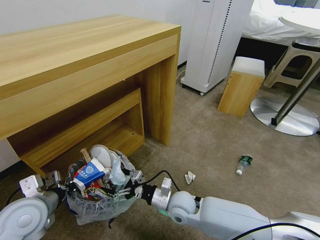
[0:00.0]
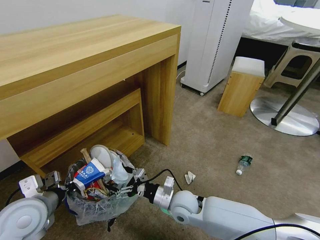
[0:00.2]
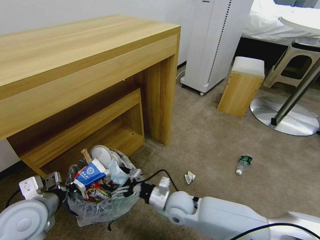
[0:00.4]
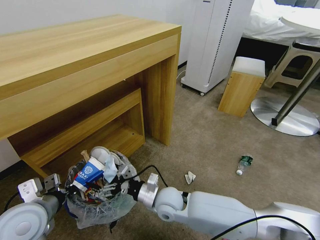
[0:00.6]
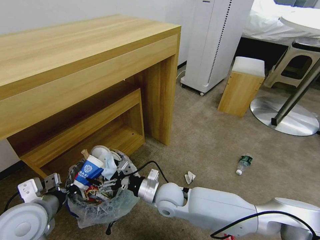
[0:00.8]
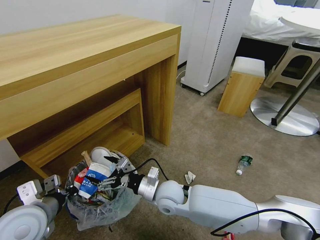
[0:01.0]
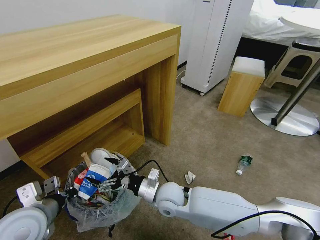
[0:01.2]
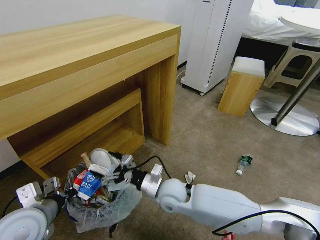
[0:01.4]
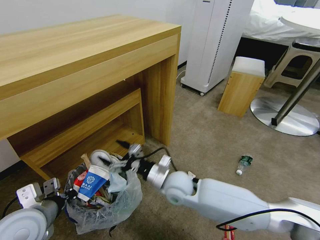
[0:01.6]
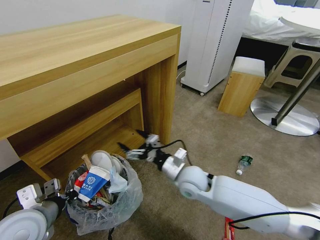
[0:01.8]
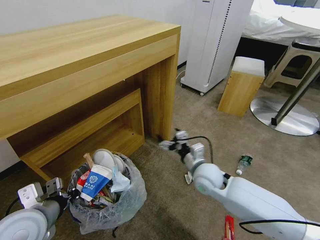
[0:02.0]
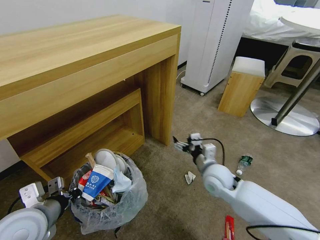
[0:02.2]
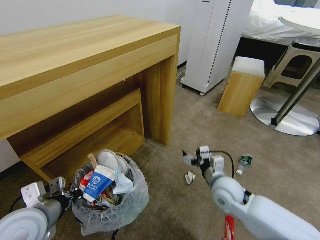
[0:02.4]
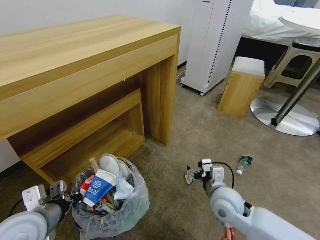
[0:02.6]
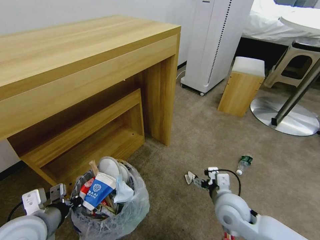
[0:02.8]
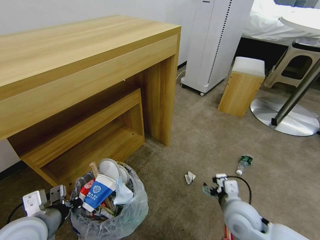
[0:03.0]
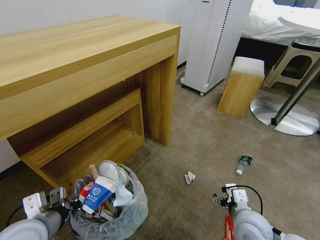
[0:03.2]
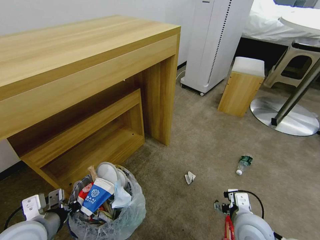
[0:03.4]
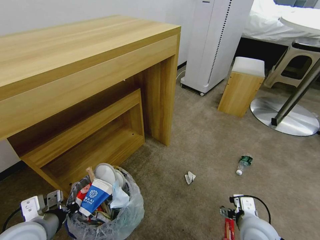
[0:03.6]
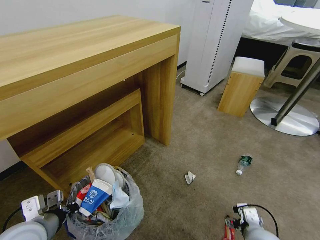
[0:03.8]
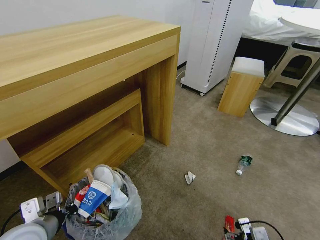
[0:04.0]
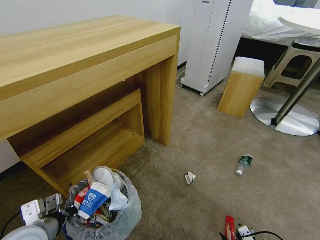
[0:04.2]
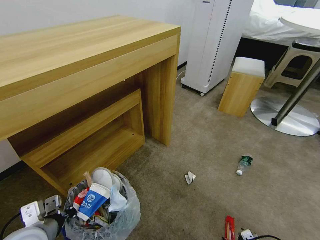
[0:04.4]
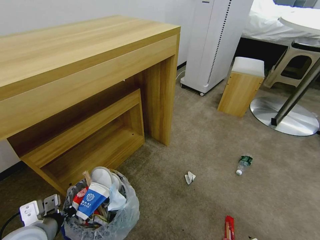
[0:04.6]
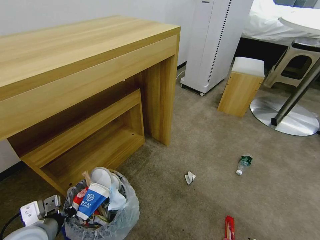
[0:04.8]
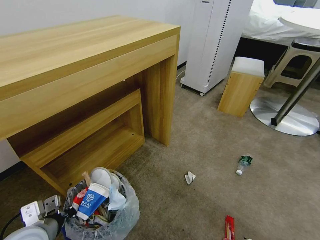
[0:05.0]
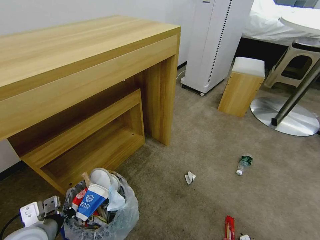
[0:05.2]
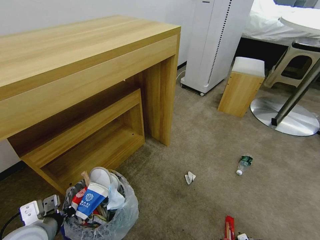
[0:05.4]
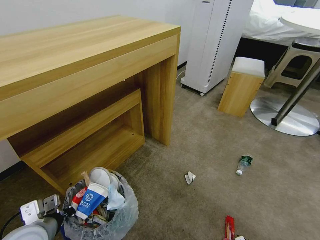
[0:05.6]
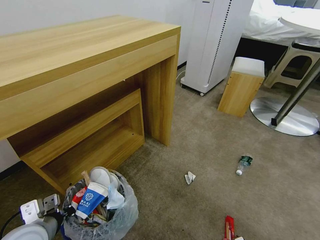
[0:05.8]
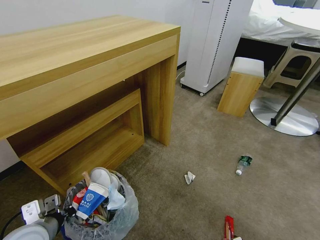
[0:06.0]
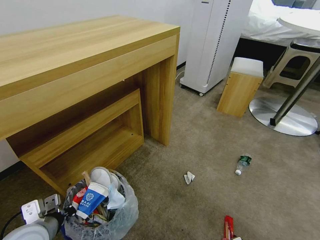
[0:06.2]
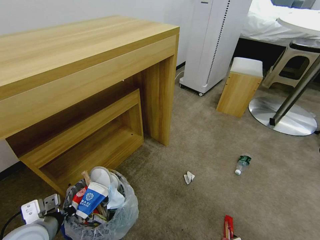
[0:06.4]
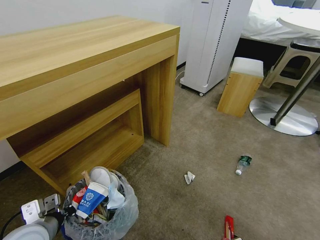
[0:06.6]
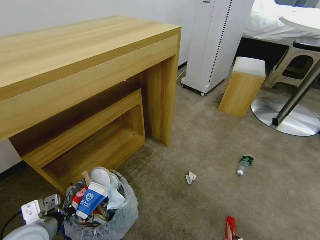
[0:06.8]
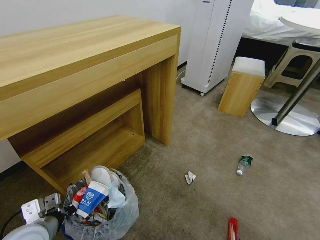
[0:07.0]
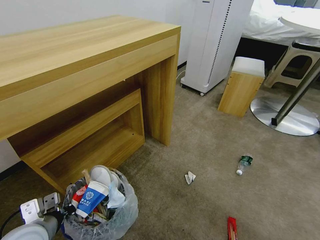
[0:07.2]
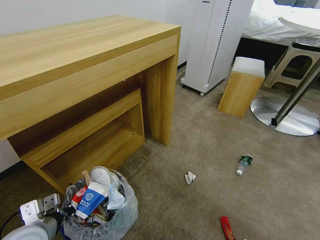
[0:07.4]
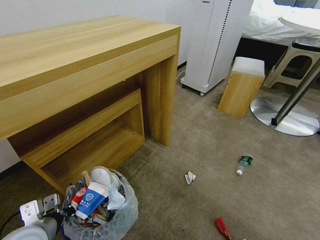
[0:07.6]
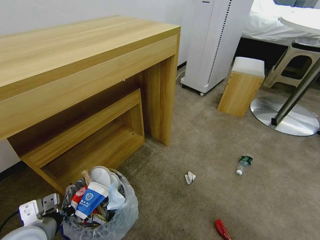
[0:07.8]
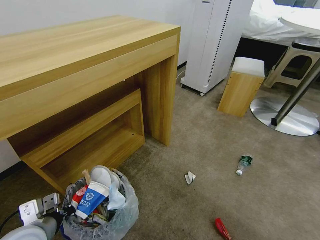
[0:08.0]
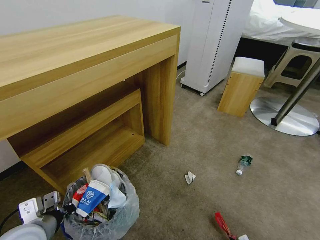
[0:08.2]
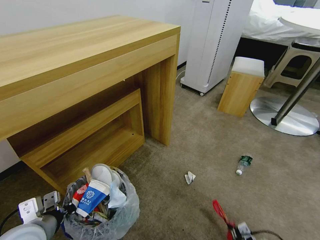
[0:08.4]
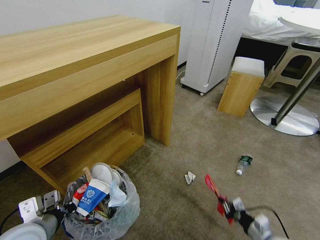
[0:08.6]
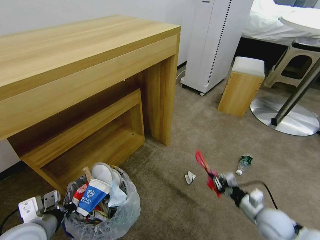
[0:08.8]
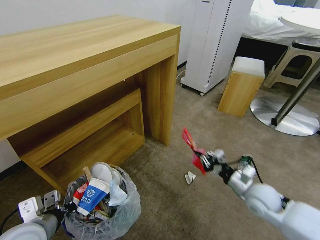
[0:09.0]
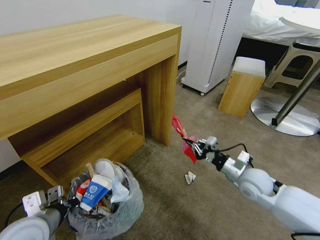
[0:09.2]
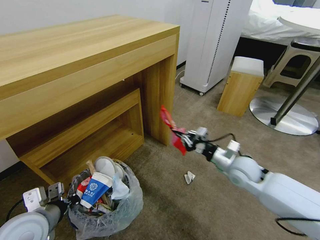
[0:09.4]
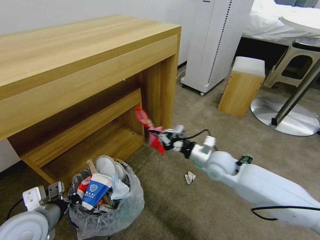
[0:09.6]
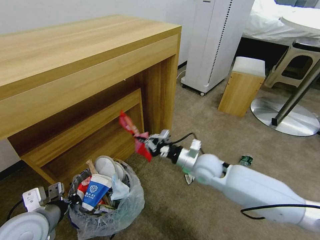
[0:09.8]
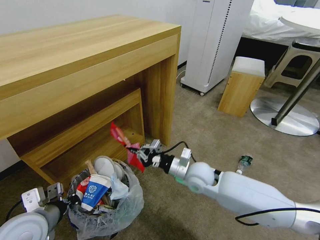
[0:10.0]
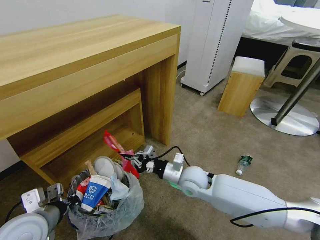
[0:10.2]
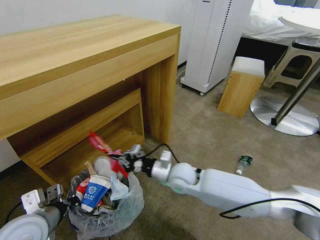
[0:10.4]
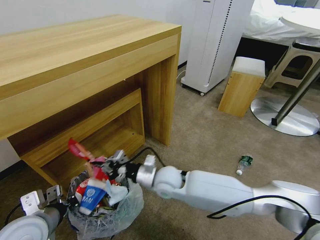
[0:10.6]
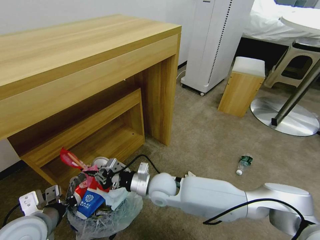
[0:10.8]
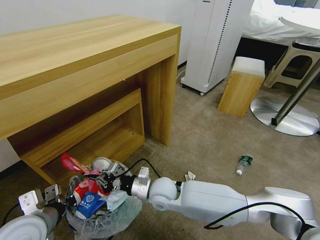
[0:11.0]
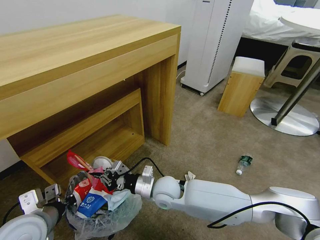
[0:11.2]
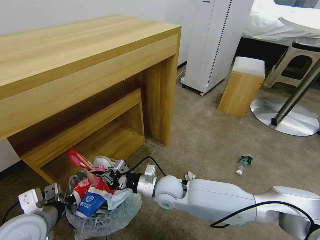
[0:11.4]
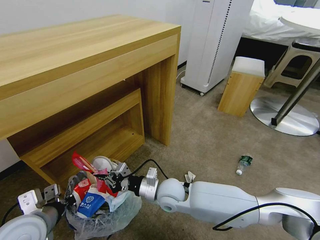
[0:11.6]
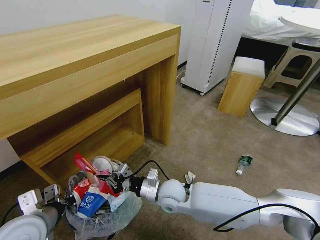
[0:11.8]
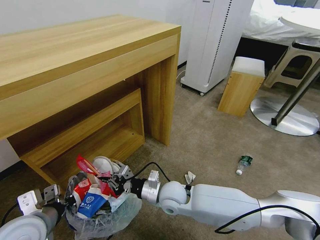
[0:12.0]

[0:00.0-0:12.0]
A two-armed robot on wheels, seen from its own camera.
Task of the whole recording: Pick up the trash bin and place the garbage on the floor into it.
0:00.0 to 0:01.6: The right gripper moves upward, approximately 10 cm.
0:01.6 to 0:03.0: The right gripper goes some 20 cm to the right and backward.
0:03.0 to 0:04.4: The right gripper shifts roughly 25 cm backward, to the right and downward.
0:04.4 to 0:06.0: The right gripper travels downward by some 10 cm.
0:06.0 to 0:07.6: The right gripper closes its fingers.
0:07.6 to 0:09.0: The right gripper moves forward and upward, about 30 cm.
0:09.0 to 0:10.4: The right gripper heads to the left, covering about 25 cm.
0:10.4 to 0:12.0: The right gripper heads backward, covering roughly 5 cm.

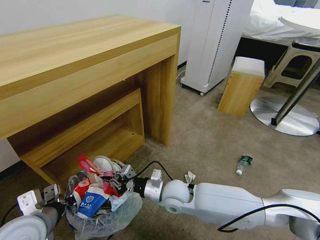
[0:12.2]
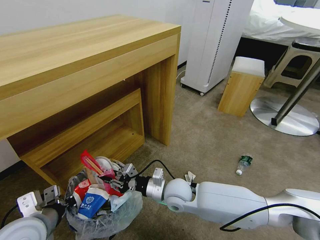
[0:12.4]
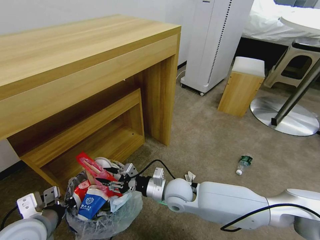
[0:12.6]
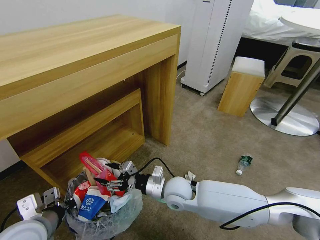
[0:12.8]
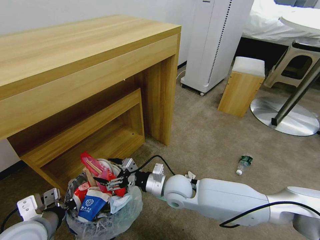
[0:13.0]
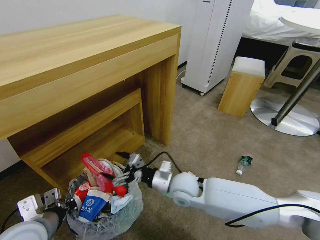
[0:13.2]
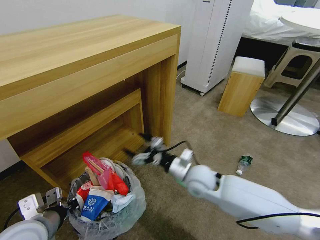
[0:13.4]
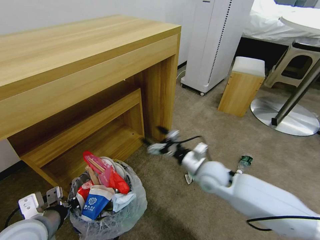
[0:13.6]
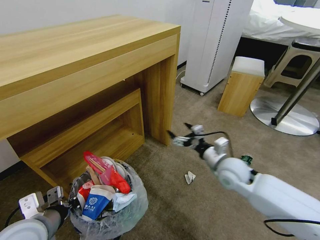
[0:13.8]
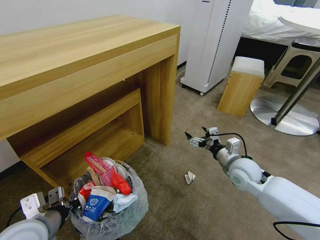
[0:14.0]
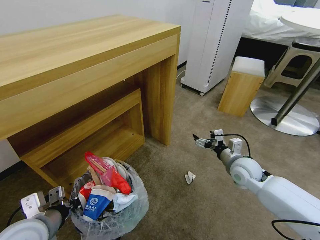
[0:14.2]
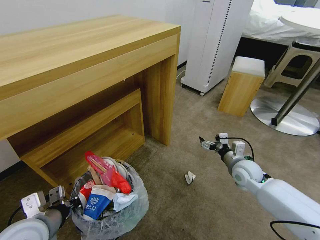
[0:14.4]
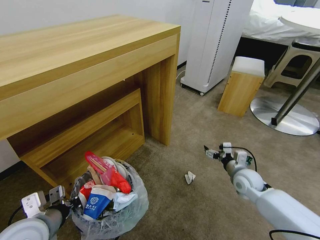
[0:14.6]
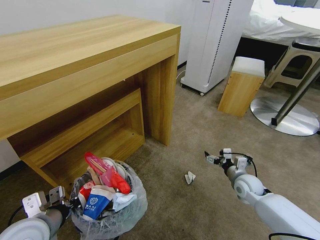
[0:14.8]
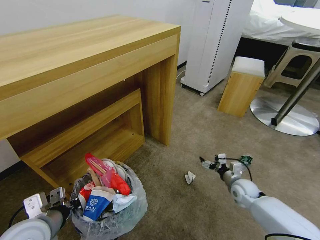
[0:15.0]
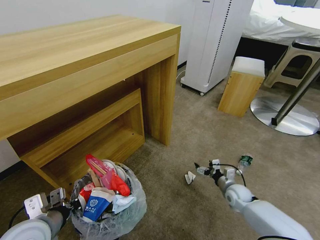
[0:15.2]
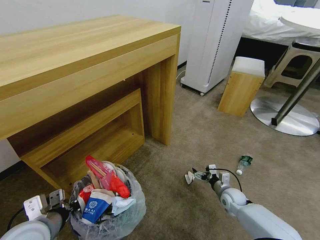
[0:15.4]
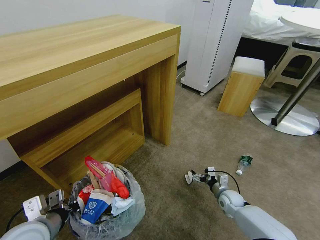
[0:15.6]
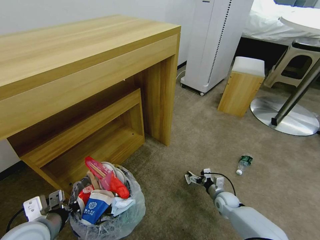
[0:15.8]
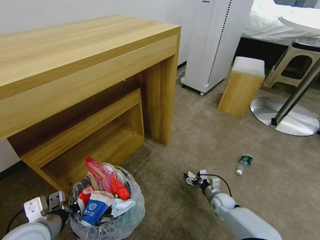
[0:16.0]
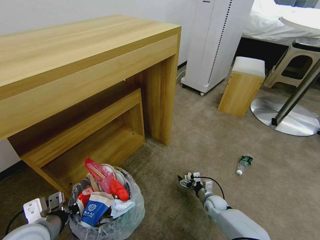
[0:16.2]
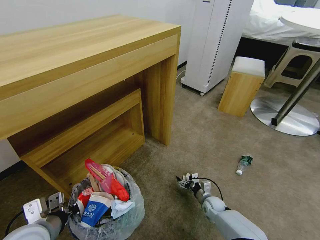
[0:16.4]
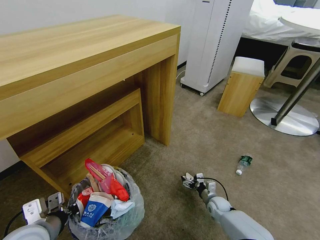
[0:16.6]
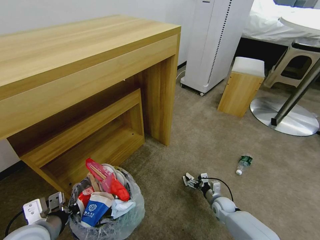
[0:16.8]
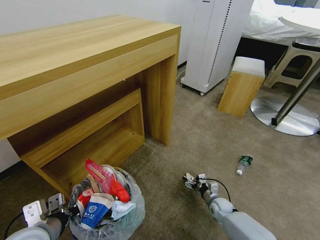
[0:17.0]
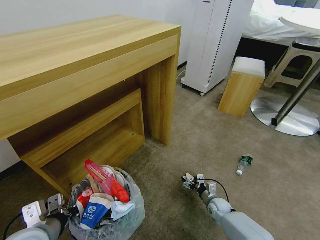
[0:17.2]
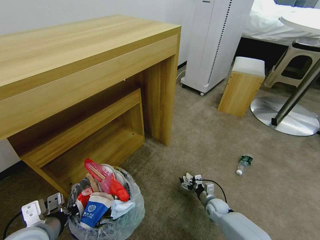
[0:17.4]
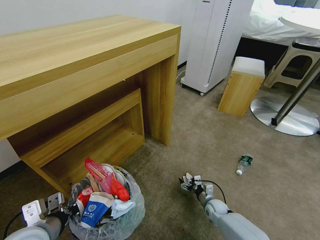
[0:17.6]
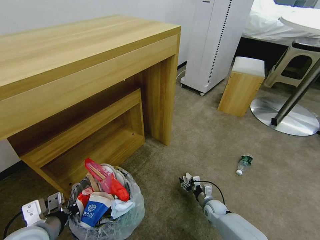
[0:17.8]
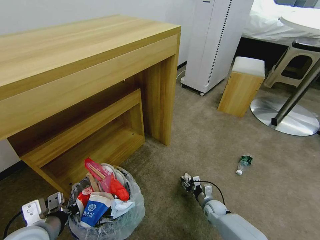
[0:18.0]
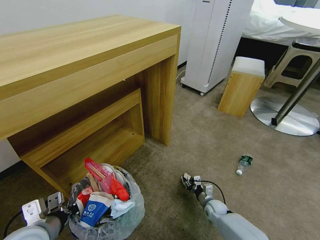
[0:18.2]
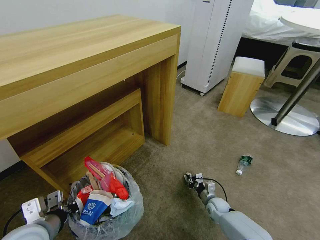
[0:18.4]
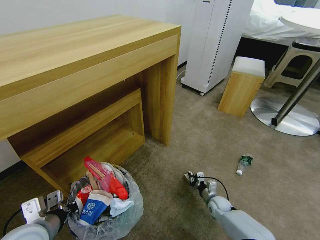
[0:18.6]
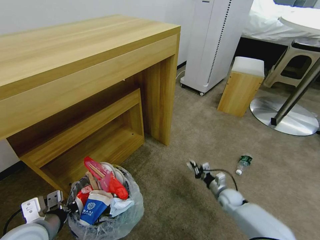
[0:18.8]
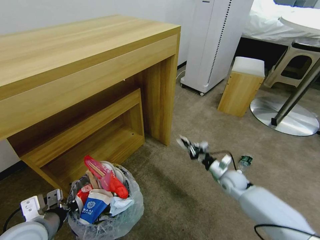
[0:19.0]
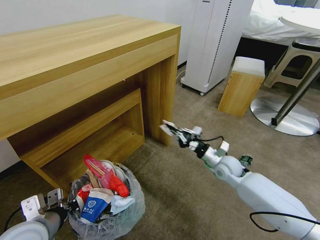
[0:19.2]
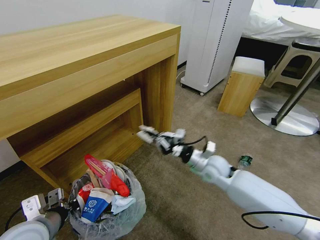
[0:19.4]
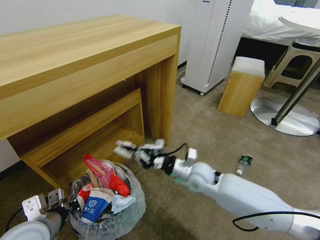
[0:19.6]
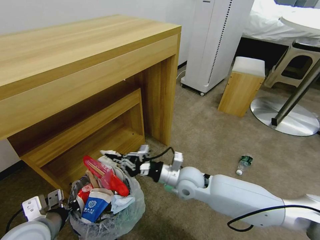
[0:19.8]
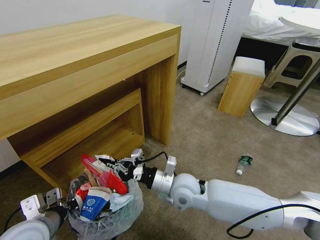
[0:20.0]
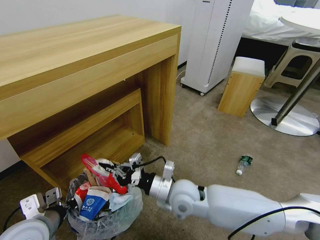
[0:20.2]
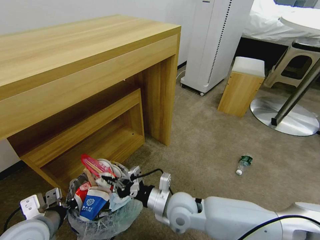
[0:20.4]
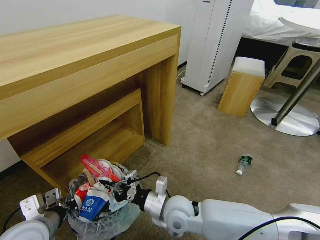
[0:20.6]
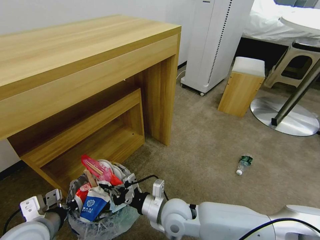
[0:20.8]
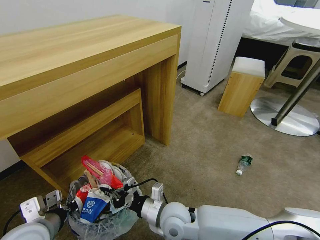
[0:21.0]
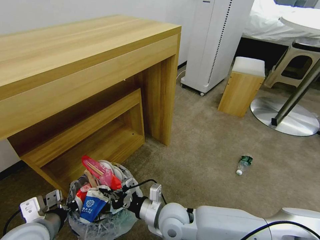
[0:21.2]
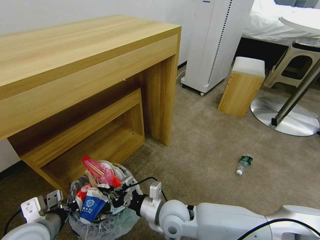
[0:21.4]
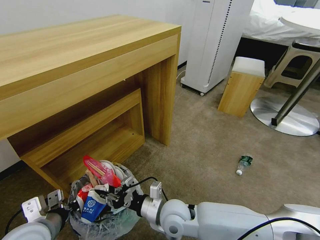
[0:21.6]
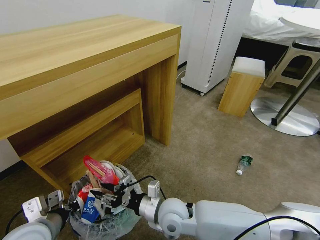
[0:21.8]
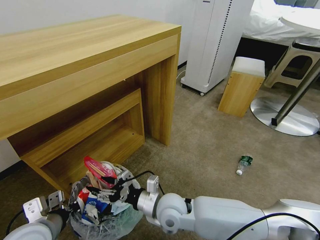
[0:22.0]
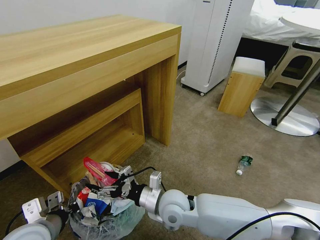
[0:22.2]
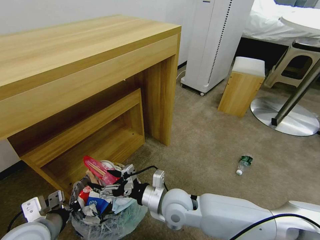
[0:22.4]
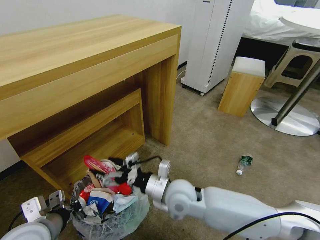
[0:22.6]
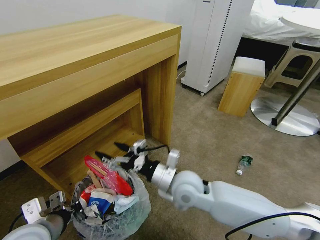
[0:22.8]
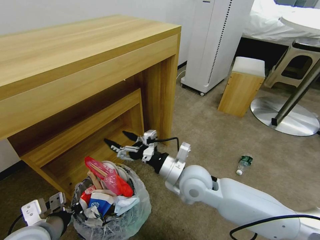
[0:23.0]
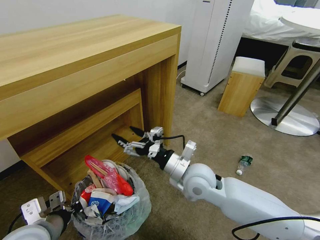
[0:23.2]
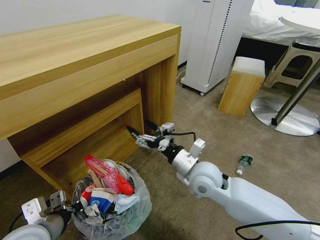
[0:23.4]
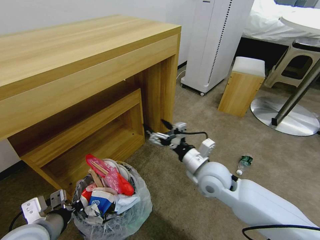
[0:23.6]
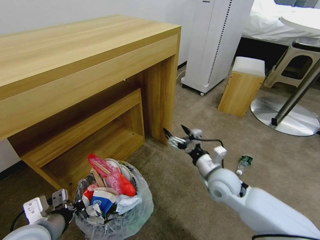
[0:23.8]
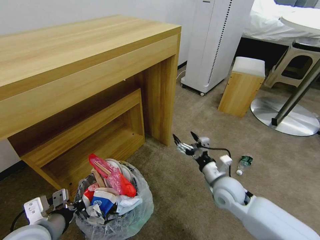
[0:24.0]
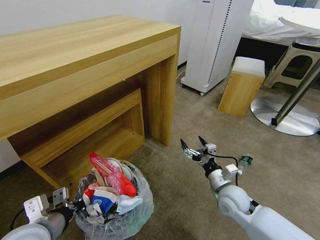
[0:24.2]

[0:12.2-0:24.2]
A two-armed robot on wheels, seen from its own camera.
Task of the whole recording: Pick up the trash bin and place the garbage on the floor into it.
0:12.2 to 0:13.8: The right gripper is displaced to the right by about 20 cm, and opens.
0:13.8 to 0:15.2: The right gripper heads downward and to the right, covering about 20 cm.
0:15.2 to 0:16.6: The right gripper goes some 10 cm downward and to the left.
0:16.6 to 0:18.2: The right gripper closes its fingers.
0:18.2 to 0:19.8: The right gripper moves upward and to the left, roughly 35 cm.
0:19.8 to 0:21.2: The right gripper shifts roughly 10 cm backward and to the left.
0:21.2 to 0:22.6: The right gripper shifts approximately 10 cm upward and forward, and opens.
0:22.6 to 0:24.2: The right gripper shifts about 20 cm to the right.
